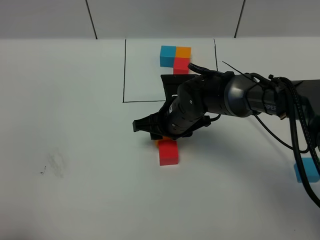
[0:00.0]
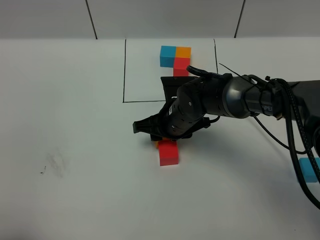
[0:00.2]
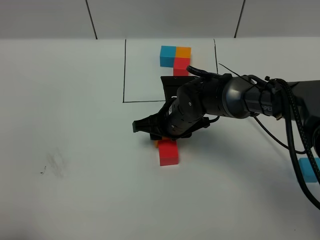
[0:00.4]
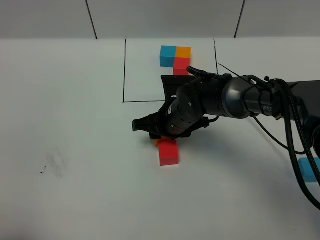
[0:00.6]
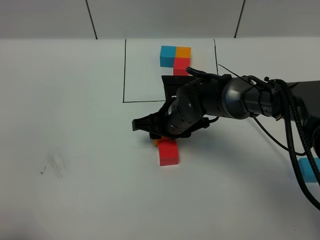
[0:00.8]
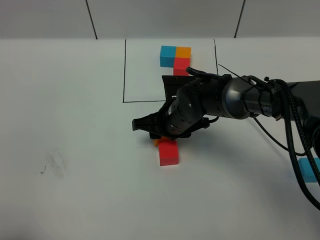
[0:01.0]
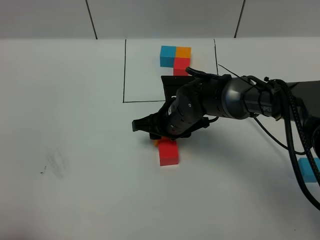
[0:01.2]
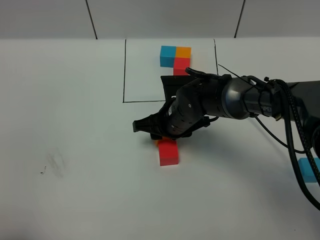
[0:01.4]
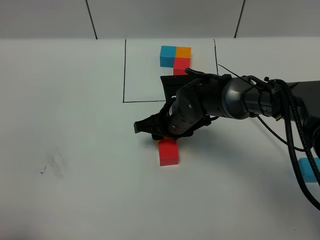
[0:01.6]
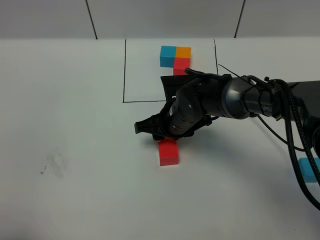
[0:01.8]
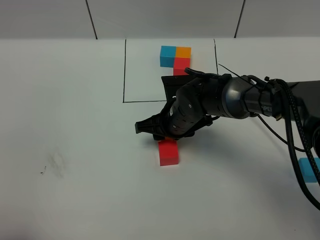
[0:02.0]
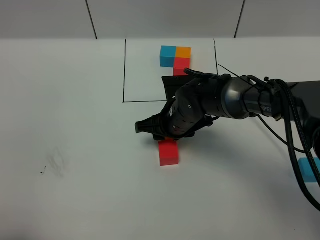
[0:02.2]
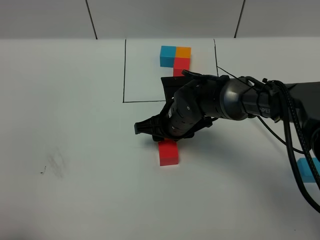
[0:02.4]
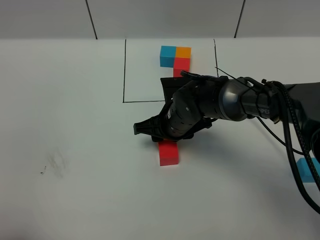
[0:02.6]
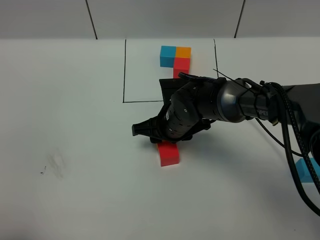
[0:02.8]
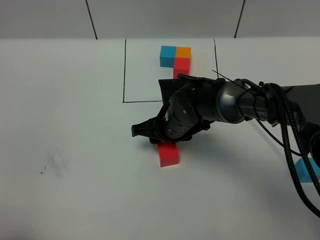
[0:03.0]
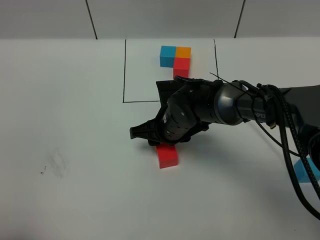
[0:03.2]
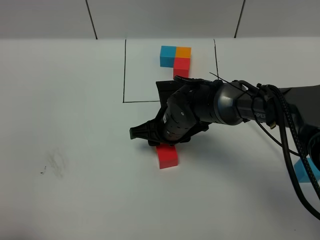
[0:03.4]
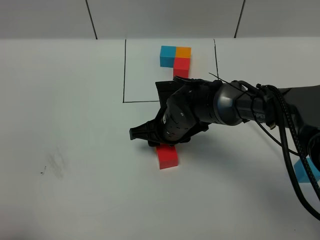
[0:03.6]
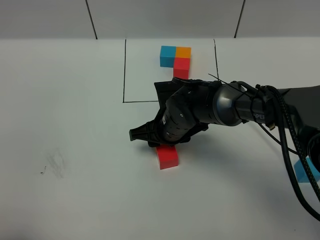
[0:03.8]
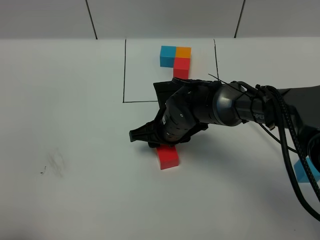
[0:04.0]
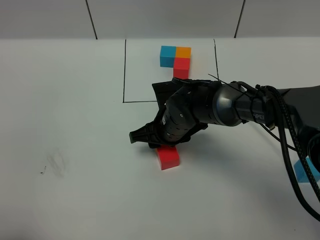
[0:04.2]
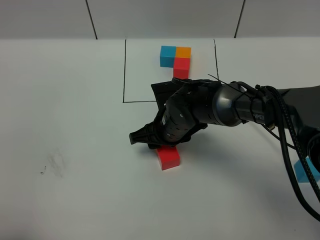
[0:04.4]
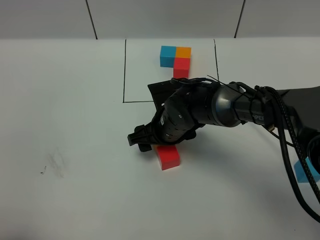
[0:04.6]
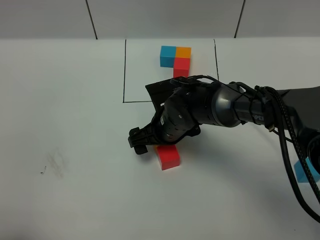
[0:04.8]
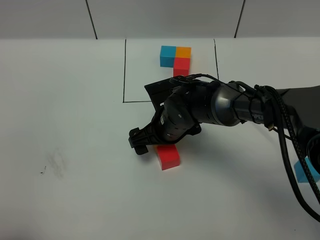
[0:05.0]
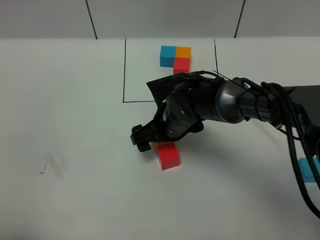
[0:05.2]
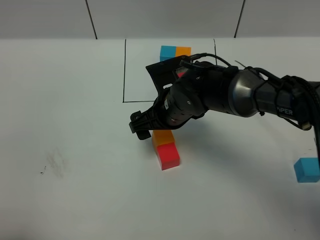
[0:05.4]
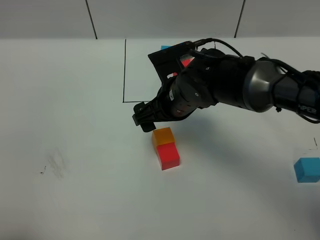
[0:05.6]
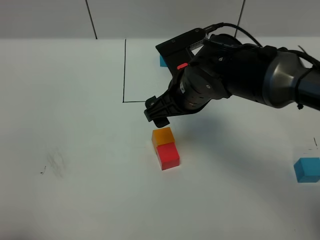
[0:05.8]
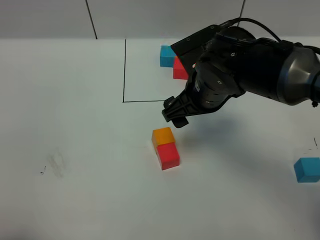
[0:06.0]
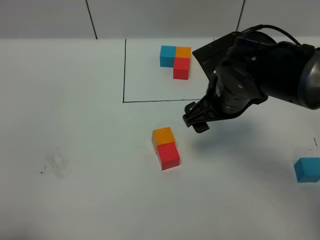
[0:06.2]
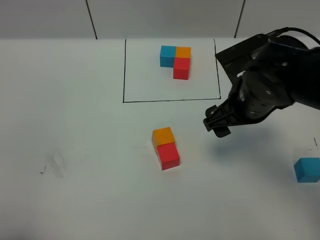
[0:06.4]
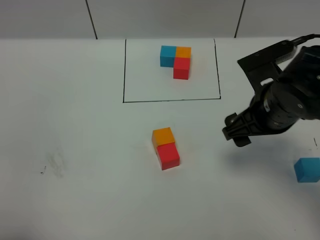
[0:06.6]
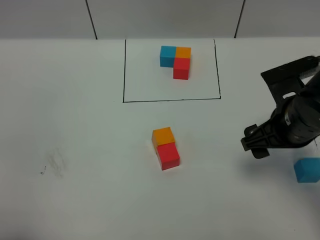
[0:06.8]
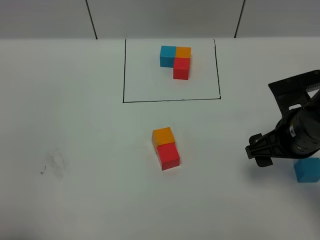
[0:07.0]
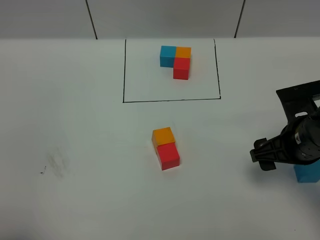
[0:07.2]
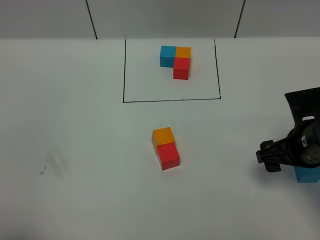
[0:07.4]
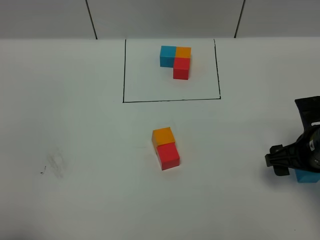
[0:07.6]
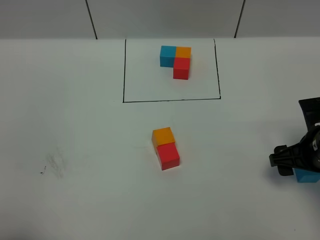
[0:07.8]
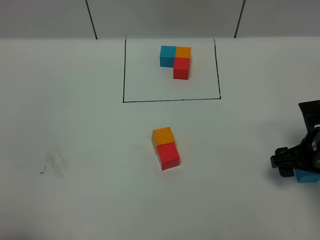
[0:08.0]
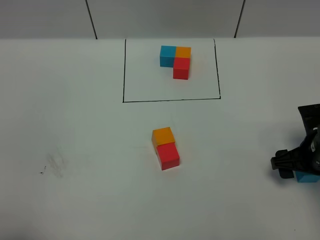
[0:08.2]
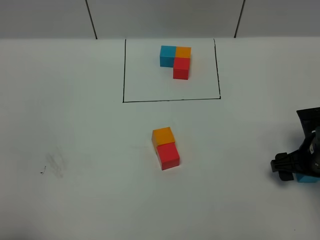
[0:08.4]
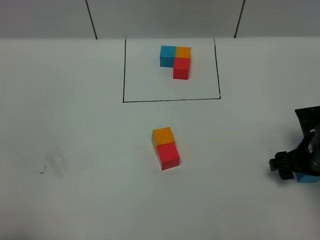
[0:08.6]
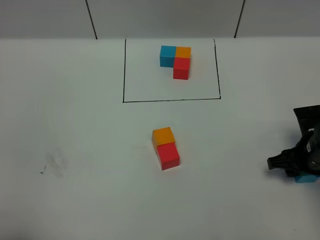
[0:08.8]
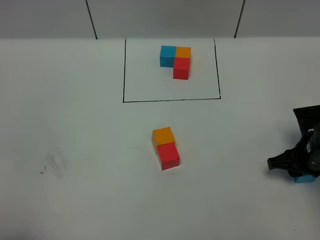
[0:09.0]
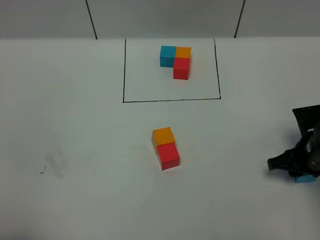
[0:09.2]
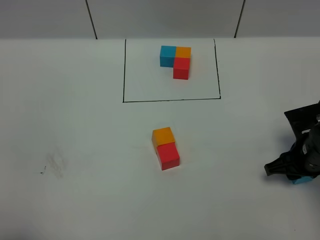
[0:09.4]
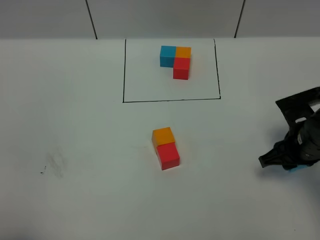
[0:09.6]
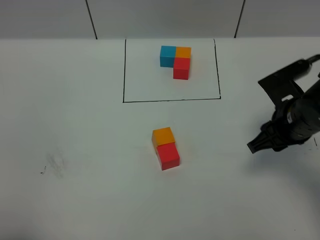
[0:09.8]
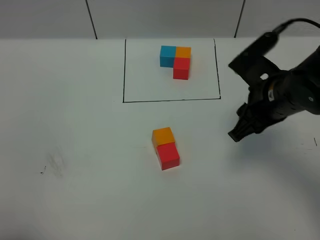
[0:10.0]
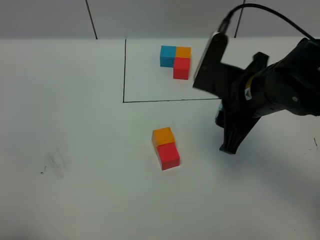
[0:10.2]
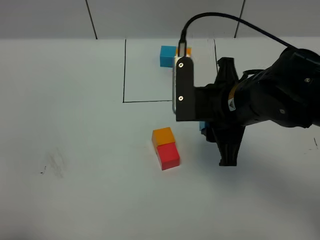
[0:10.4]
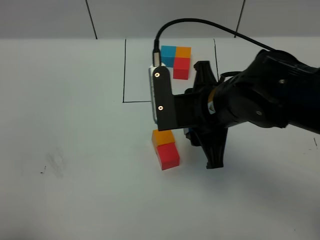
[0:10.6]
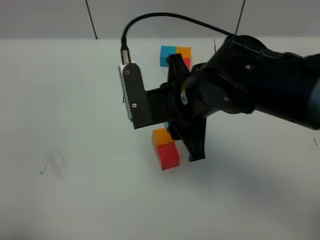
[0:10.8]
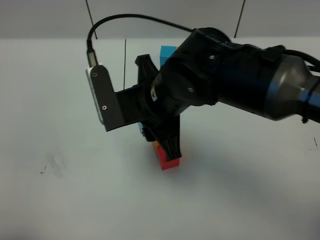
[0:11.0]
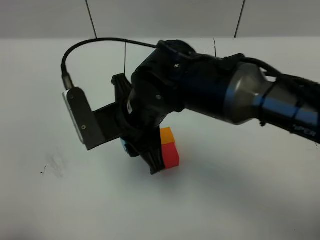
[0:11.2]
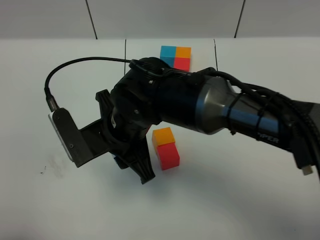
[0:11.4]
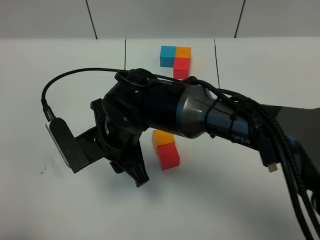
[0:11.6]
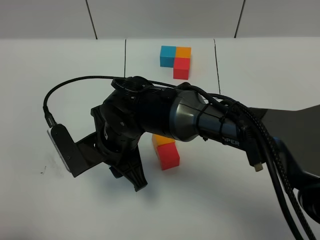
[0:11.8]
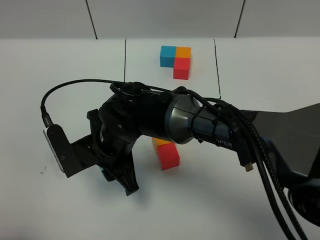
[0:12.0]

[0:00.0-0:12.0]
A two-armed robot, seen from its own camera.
Task of the whole recording: According to the building block template in front, assemble the scattered blocks together.
Step, 0:00.0 to 0:05.2: Put the orange cube on the behind of the red cube.
0:00.0 to 0:01.6: The two grippers keep their place.
0:01.6 to 0:04.4: The grippers make only small movements.
0:04.4 to 0:06.0: The right gripper is displaced upward and to the right by roughly 15 cm, and opens up.
0:06.0 to 0:07.6: The right gripper goes some 20 cm to the right.
0:07.6 to 0:09.0: The right gripper shifts about 5 cm downward, and closes its fingers.
0:09.0 to 0:10.4: The right gripper heads to the left and upward, covering approximately 20 cm.
0:10.4 to 0:12.0: The right gripper heads to the left and downward, covering approximately 20 cm.

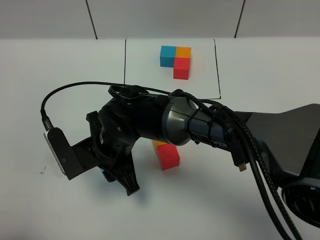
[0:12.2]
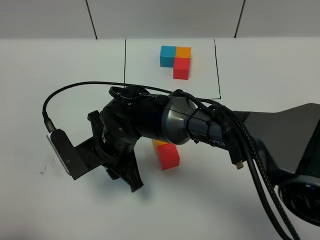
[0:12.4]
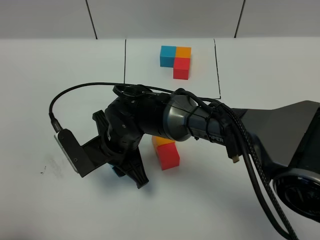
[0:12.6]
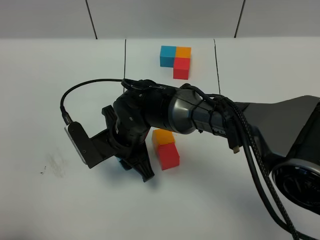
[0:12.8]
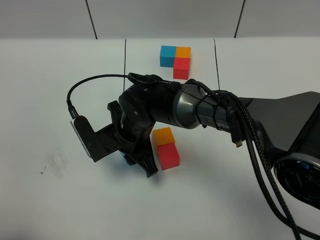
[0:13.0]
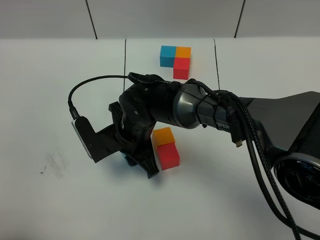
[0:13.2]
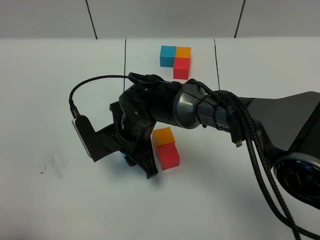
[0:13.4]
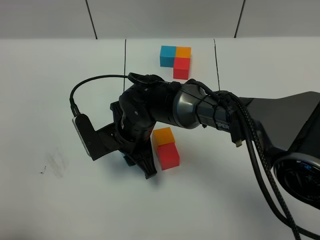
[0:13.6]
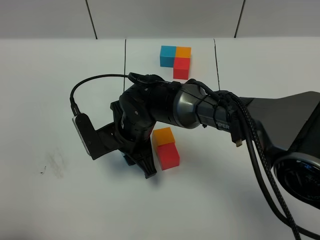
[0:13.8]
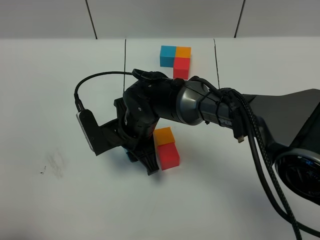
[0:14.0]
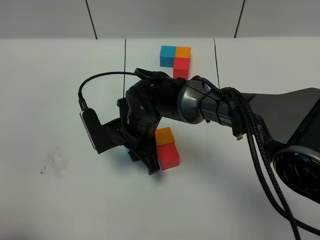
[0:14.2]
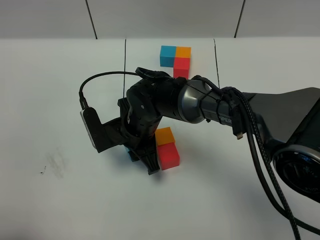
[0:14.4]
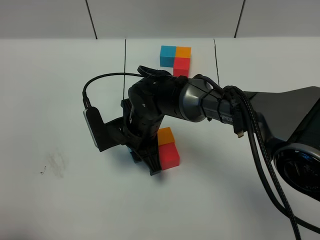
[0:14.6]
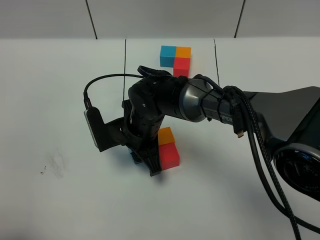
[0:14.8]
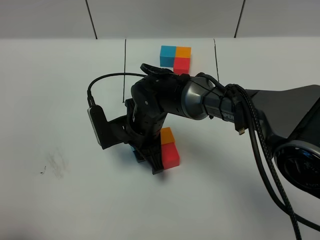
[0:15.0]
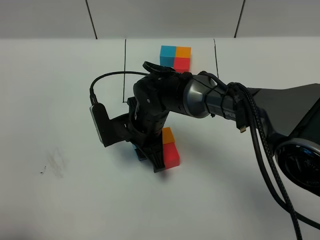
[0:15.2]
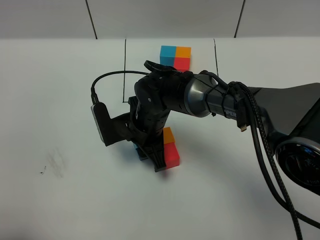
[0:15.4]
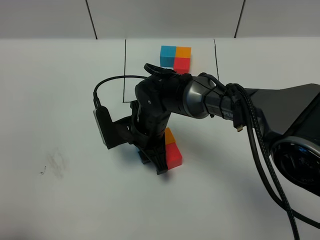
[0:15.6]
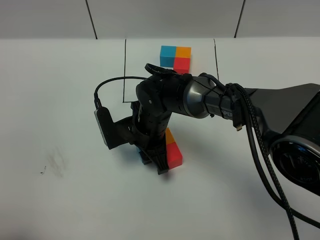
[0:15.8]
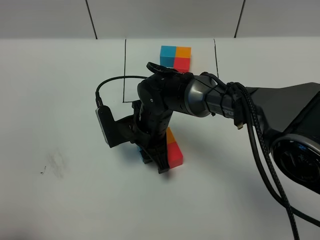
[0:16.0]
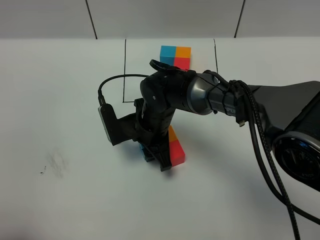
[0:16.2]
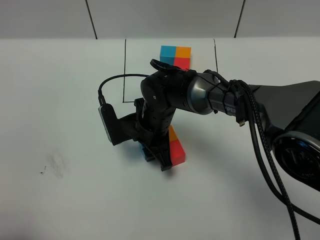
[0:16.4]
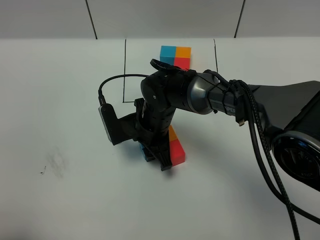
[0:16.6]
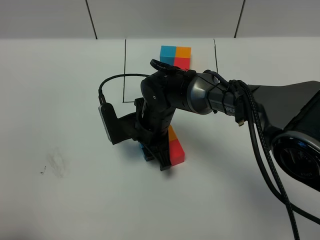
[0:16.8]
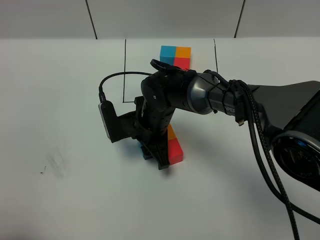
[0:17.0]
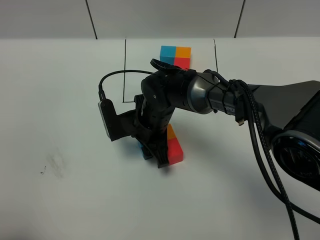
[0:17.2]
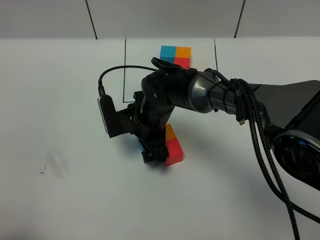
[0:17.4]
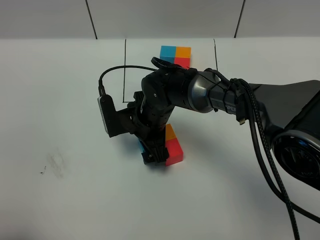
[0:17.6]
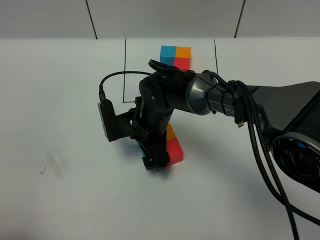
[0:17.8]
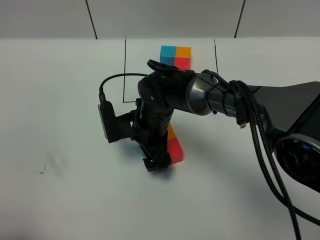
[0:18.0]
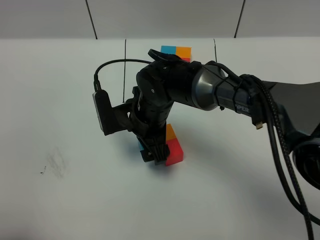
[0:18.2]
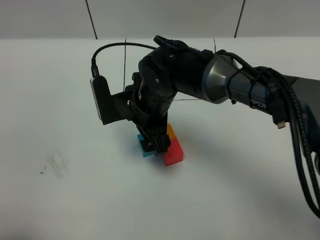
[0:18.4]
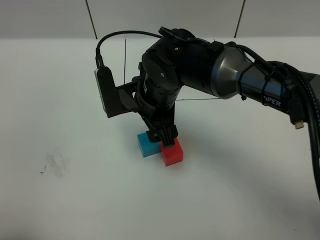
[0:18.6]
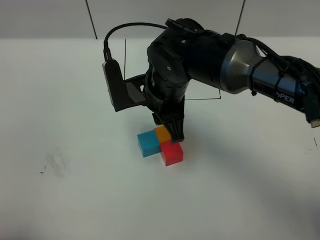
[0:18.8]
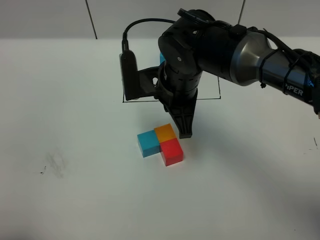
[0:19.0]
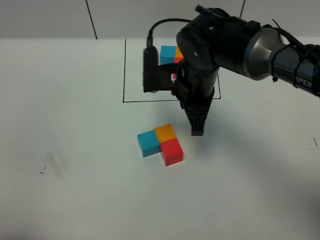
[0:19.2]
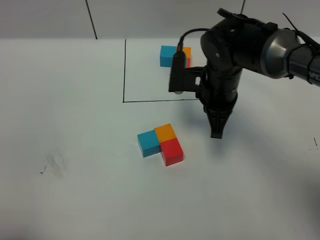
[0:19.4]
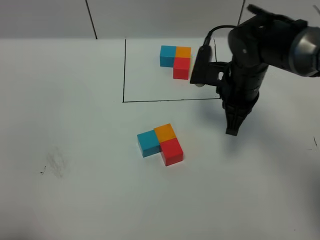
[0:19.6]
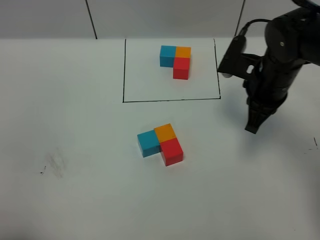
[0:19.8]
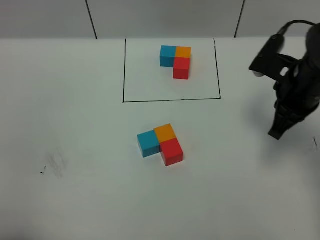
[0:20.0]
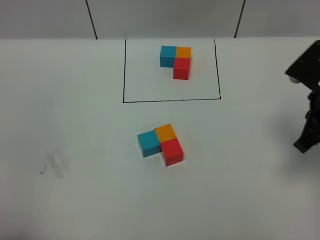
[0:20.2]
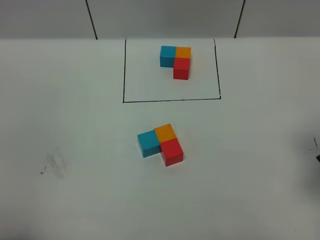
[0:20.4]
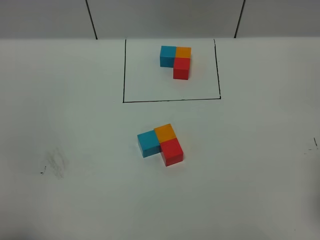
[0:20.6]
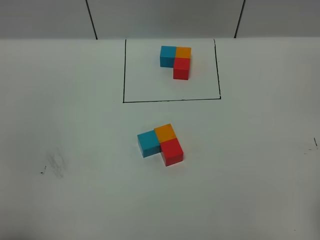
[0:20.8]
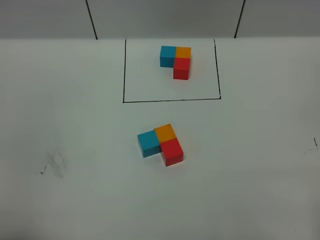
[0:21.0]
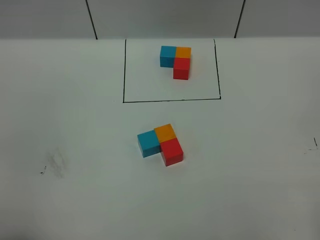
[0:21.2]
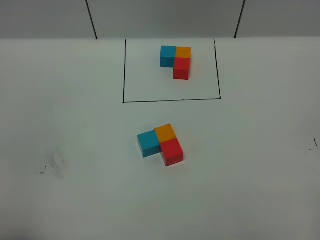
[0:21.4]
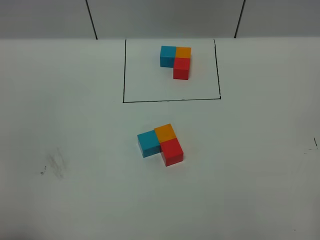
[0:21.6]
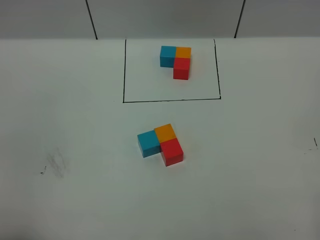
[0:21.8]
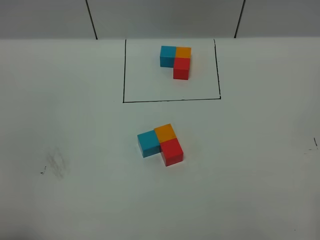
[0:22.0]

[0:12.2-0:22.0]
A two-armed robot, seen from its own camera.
Task of the whole recording: According to the building block template in front, assemble the scattered blocks together.
0:12.2 to 0:13.6: The right gripper changes place by approximately 5 cm.
0:13.6 to 0:16.4: There are only small adjustments of the grippers.
0:16.4 to 0:17.8: The right gripper opens.
0:17.8 to 0:19.2: The right gripper shifts about 15 cm upward and to the right, and closes.
0:19.2 to 0:20.6: The right gripper moves to the right and backward, about 30 cm.
